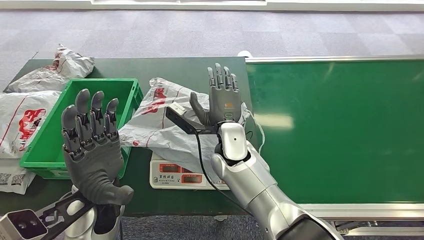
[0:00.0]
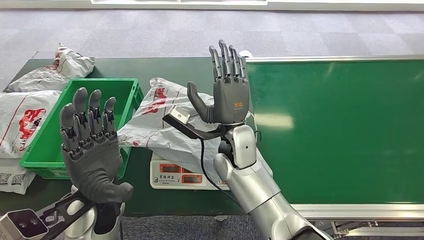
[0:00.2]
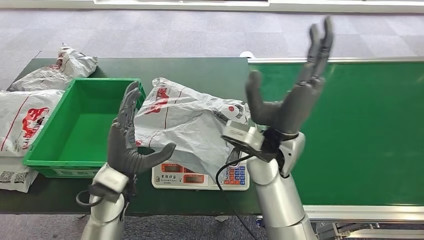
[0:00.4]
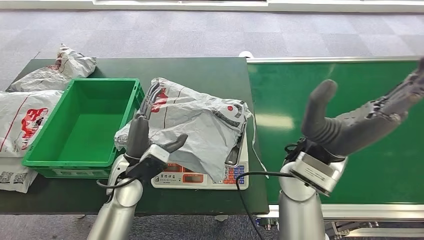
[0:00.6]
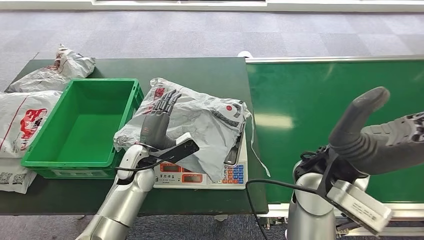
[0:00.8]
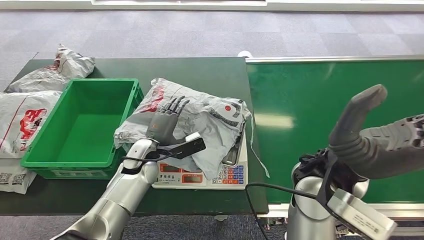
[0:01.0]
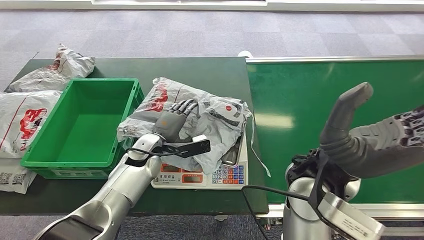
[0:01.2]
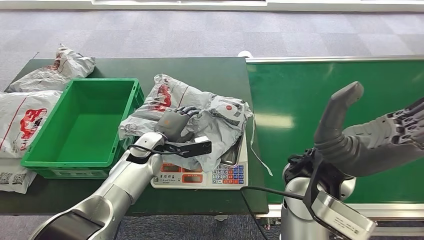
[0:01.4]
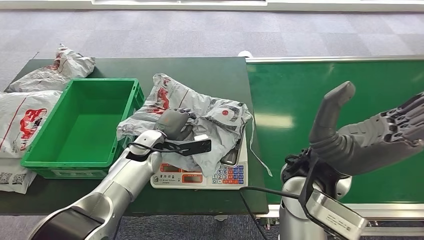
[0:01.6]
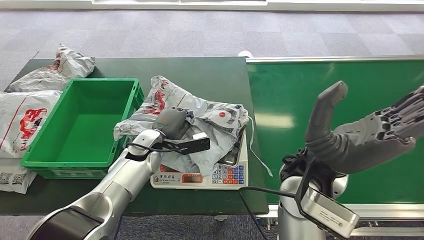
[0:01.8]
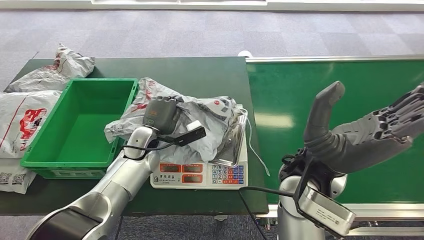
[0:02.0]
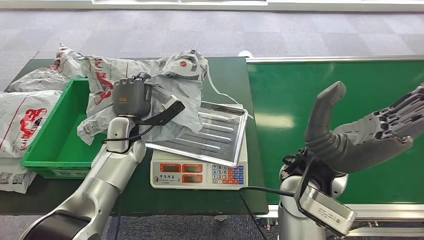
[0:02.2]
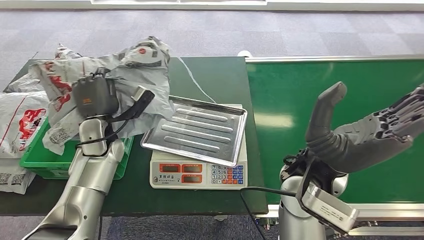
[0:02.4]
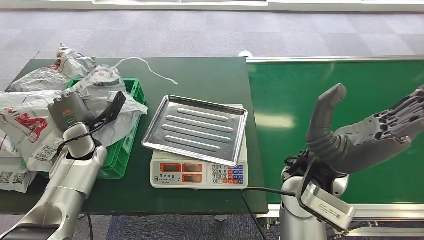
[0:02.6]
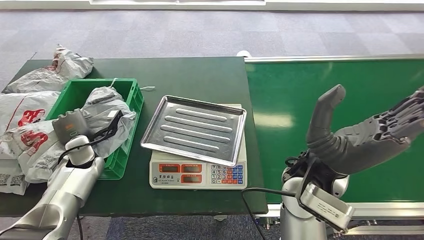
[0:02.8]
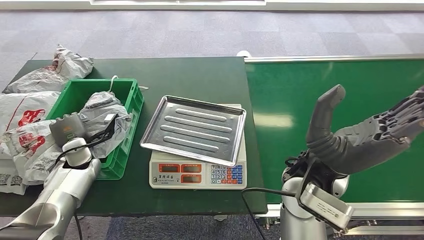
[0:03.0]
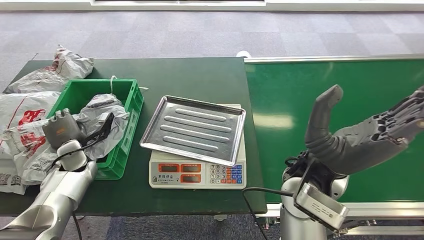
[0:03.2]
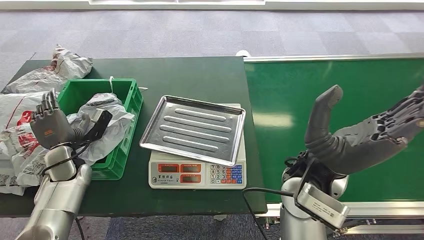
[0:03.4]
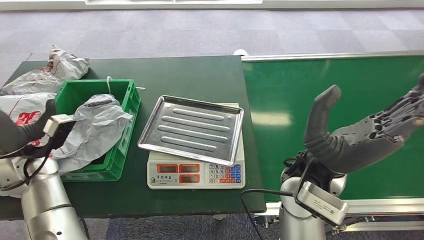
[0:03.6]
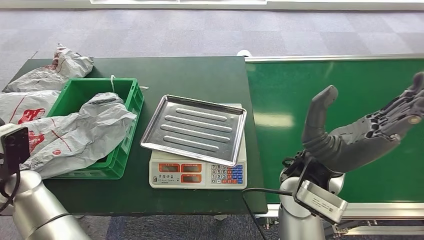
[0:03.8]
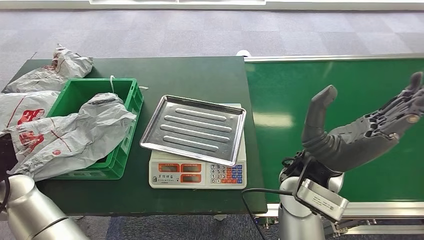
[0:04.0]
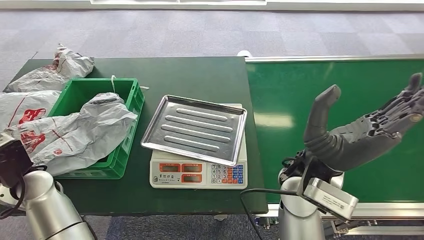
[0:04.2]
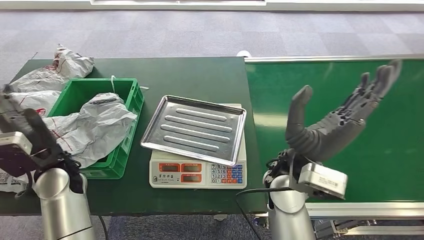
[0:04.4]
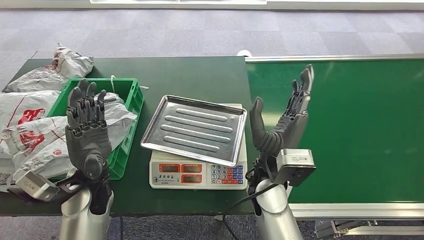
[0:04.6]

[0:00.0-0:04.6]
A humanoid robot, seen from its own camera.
Step, 0:00.2 to 0:02.2: Pick up the package from the inbound machine.
Step, 0:02.4 to 0:04.6: Place the package into the parcel locker.
